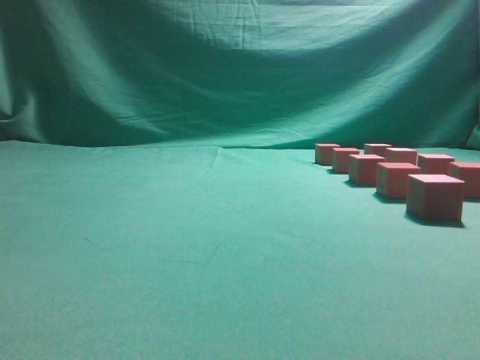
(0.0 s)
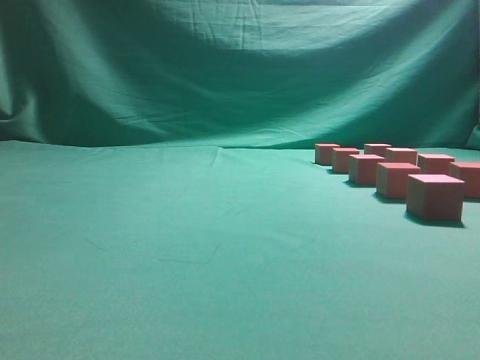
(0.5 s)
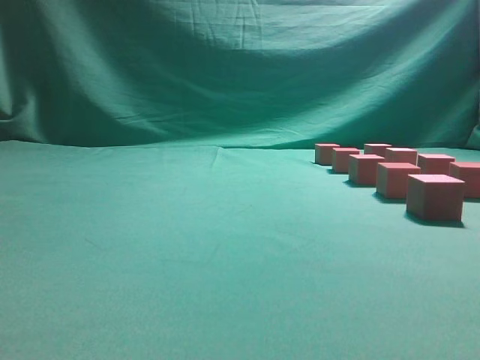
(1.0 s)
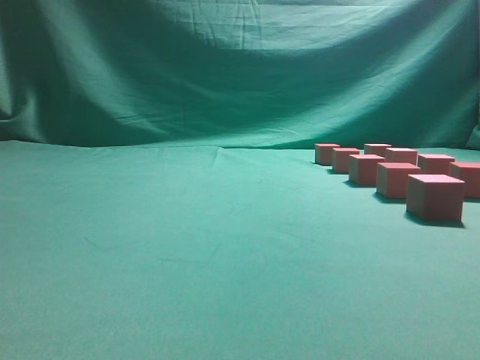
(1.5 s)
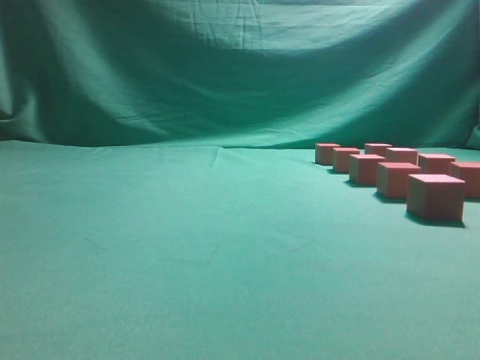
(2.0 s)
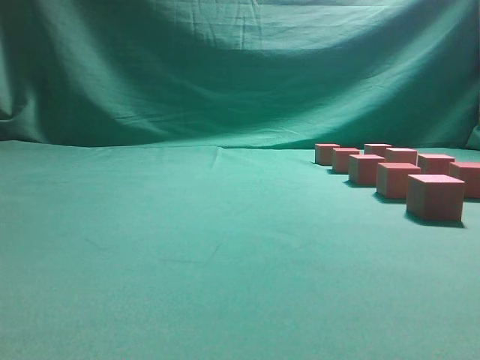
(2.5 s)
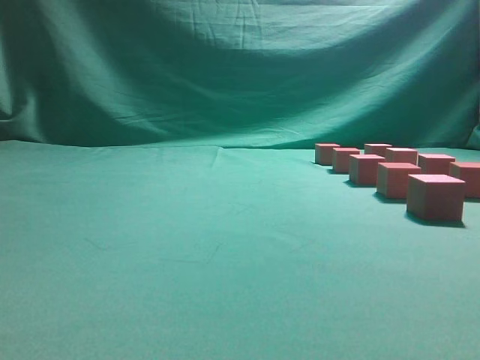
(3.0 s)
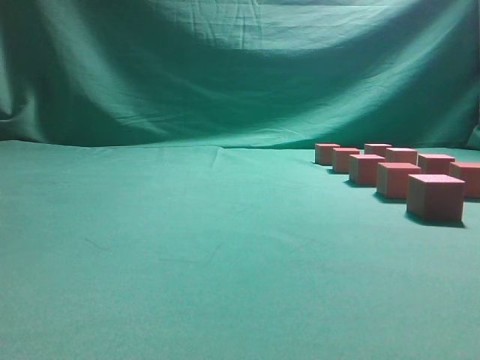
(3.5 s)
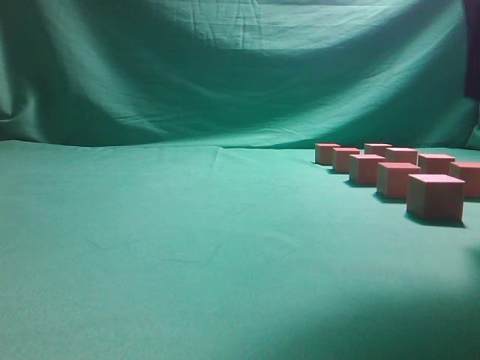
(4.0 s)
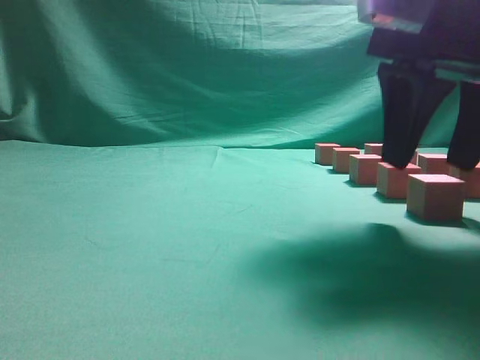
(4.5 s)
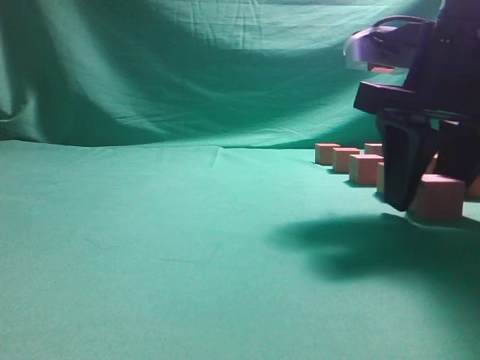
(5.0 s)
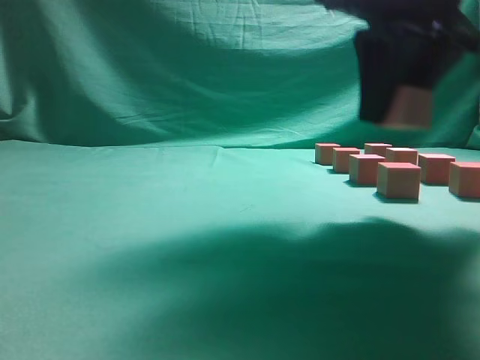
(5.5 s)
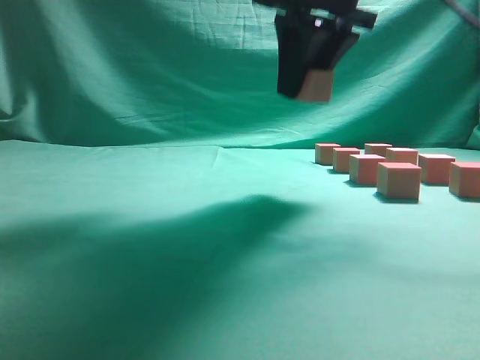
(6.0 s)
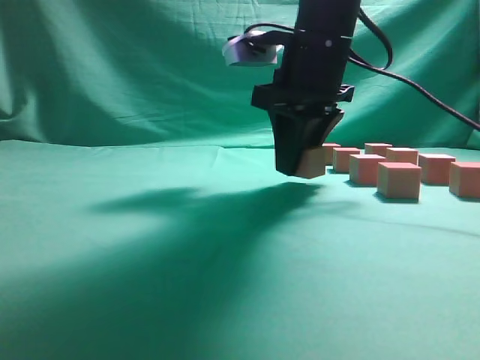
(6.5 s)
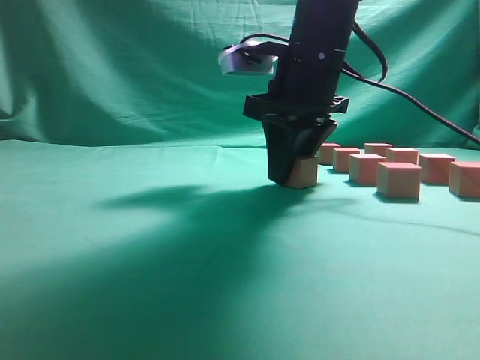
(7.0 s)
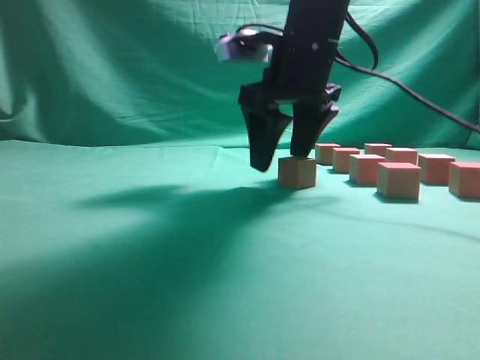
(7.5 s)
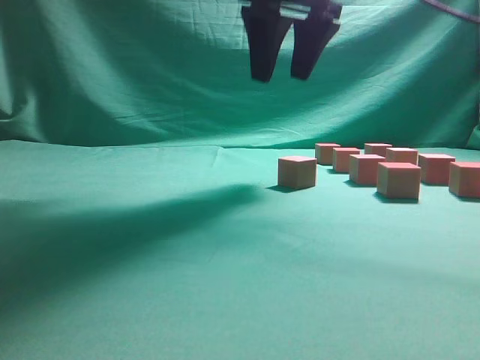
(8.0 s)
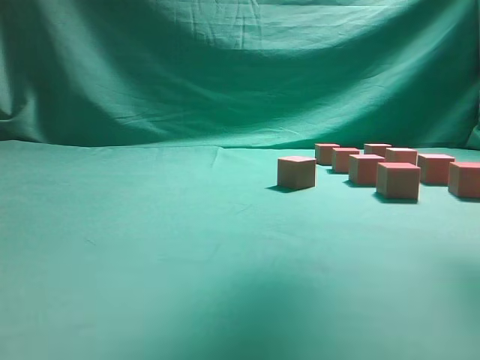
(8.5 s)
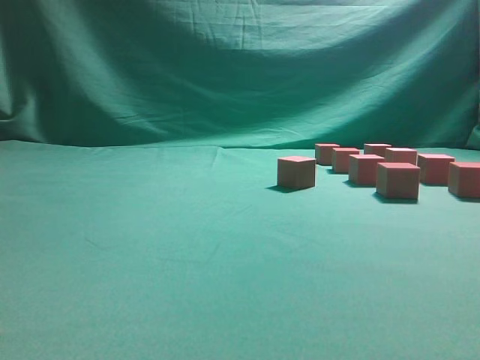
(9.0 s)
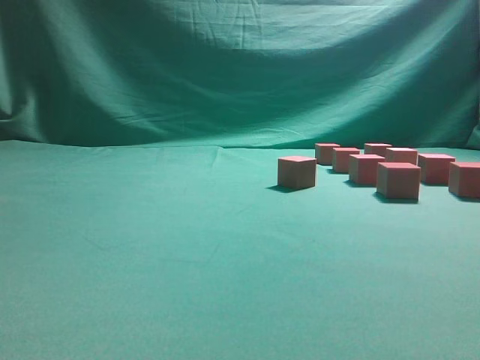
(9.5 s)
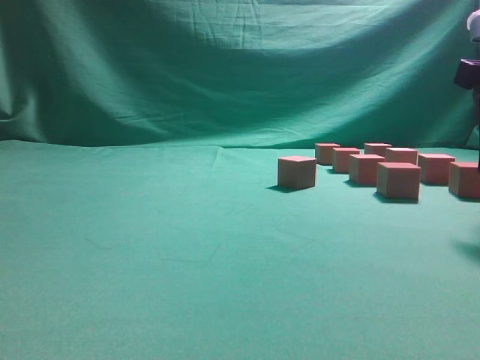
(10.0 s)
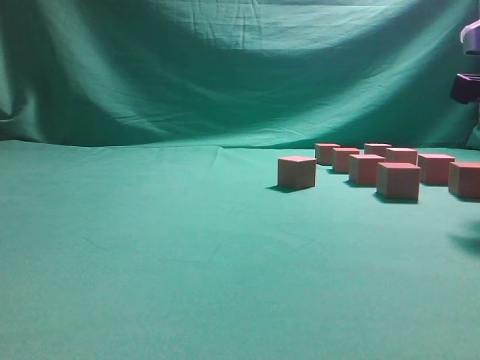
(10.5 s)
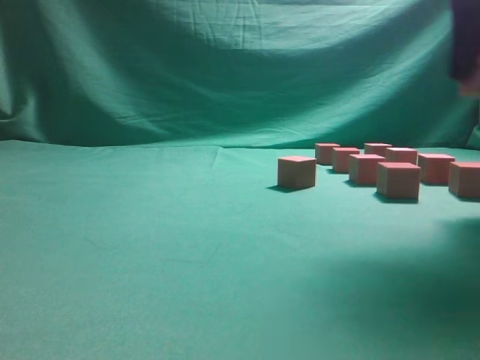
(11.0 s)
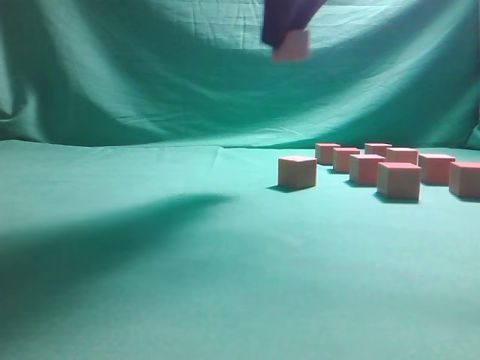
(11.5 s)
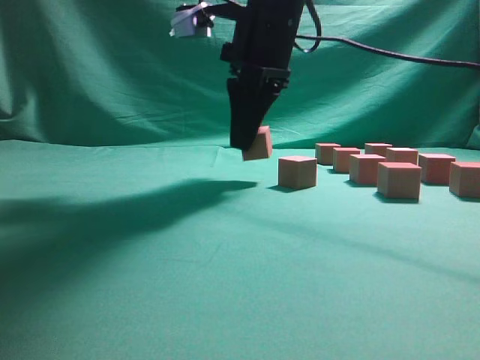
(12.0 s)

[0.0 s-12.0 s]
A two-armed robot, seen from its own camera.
Task of the whole recording: pick up the multiple cubes in two columns one by one and place them in another position on the table.
Step, 0.0 to 5.0 s: Pick up the block on the table.
Step, 5.5 to 7.5 s: Place the block at the correct position to assemble the letter S.
Step, 8.0 to 10.5 s: Pick up the block on the table.
2.0 to 4.0 s: The right gripper travels forward and to the left by roughly 20 cm.
4.0 to 6.0 s: The right gripper goes about 15 cm forward and to the left, and opens, then closes once more.
6.0 to 8.0 s: The right gripper travels downward and back again, roughly 10 cm each way, and opens.
8.0 to 10.0 s: The right gripper moves to the right, backward and downward, approximately 25 cm.
10.0 to 12.0 s: The right gripper shifts roughly 25 cm to the left and forward, and closes up.

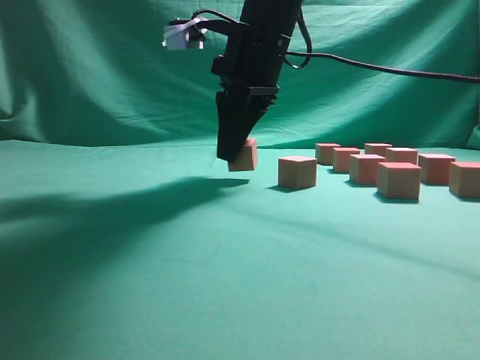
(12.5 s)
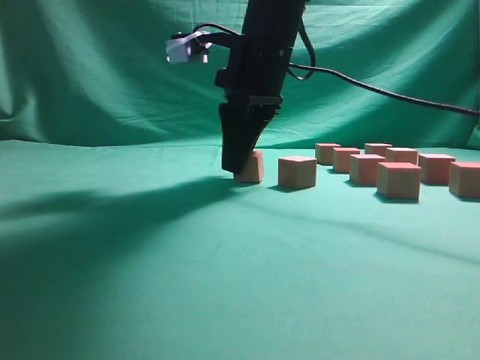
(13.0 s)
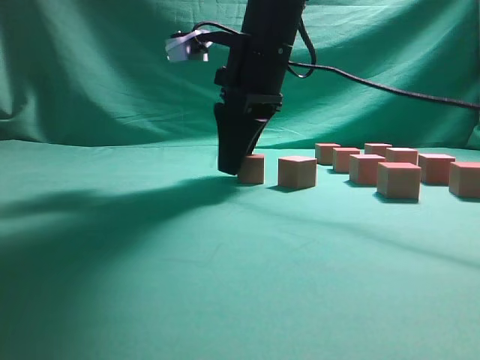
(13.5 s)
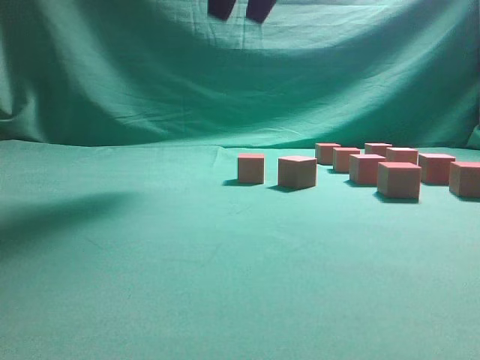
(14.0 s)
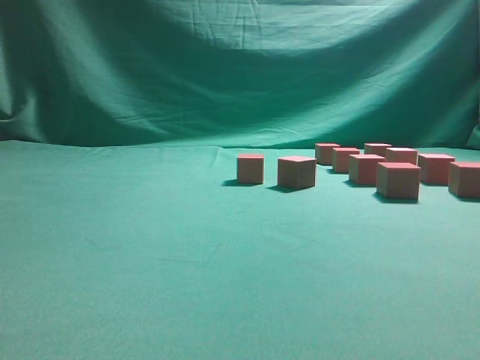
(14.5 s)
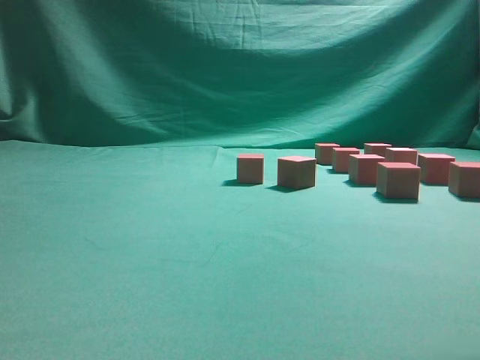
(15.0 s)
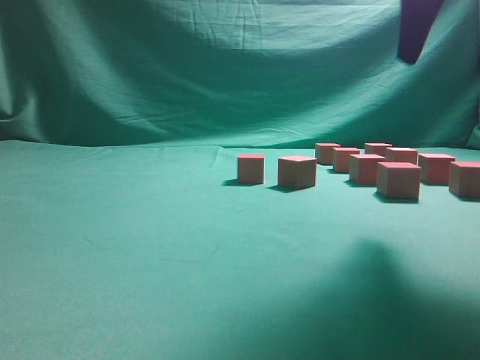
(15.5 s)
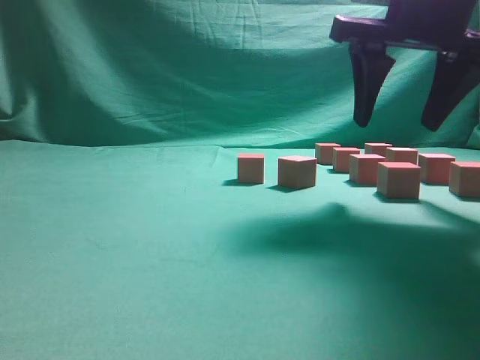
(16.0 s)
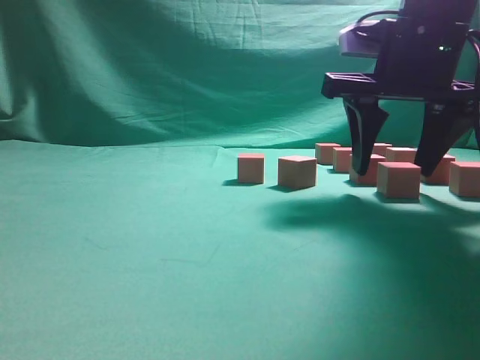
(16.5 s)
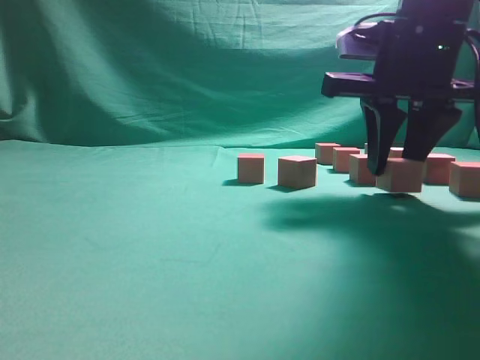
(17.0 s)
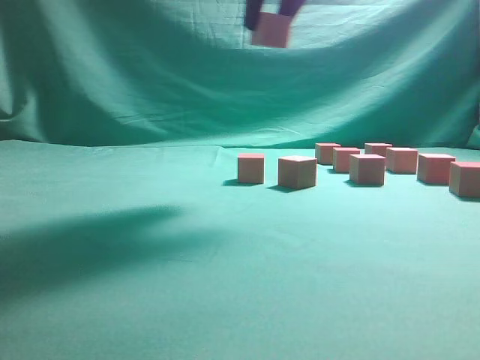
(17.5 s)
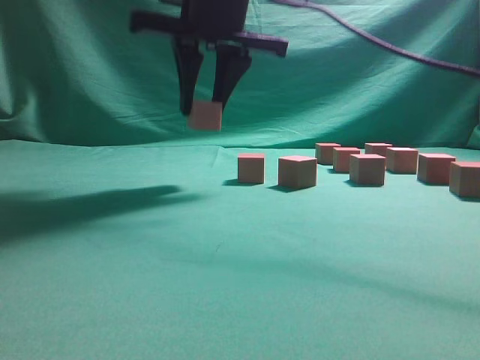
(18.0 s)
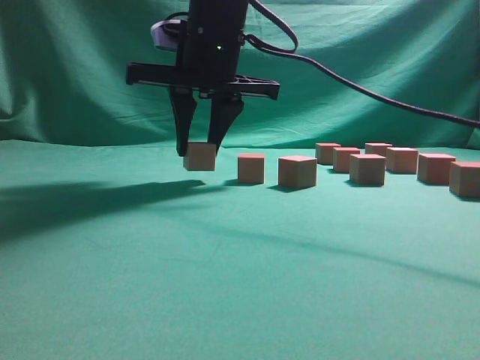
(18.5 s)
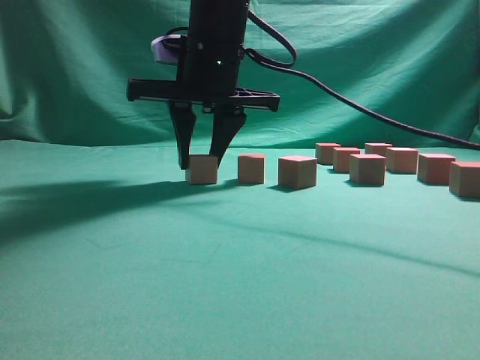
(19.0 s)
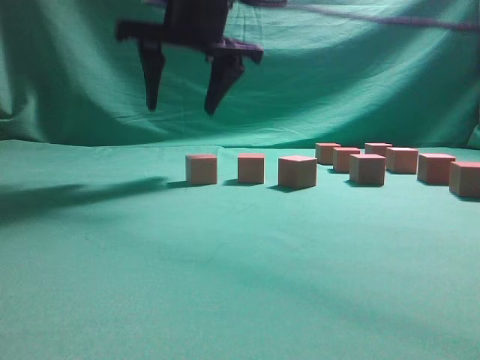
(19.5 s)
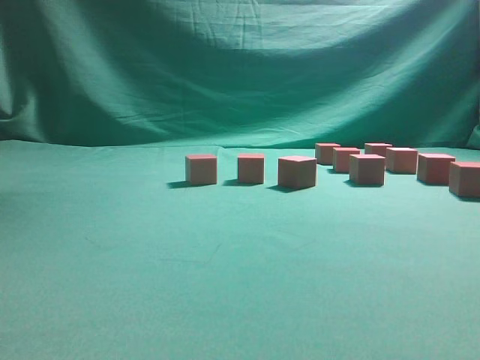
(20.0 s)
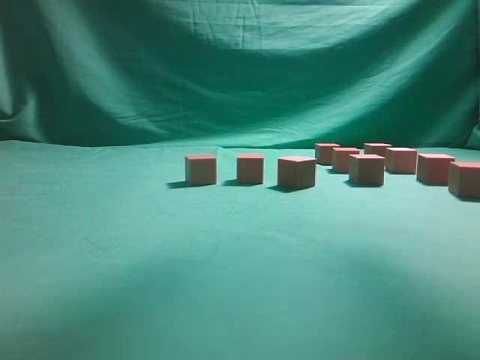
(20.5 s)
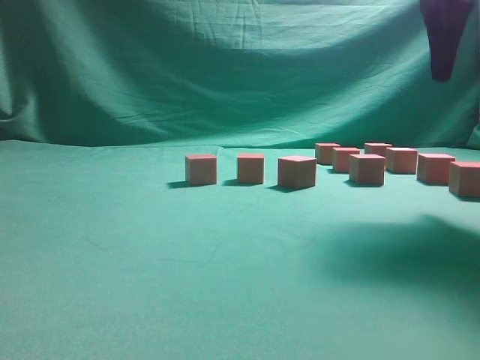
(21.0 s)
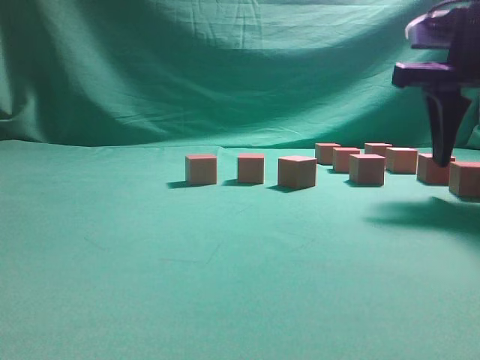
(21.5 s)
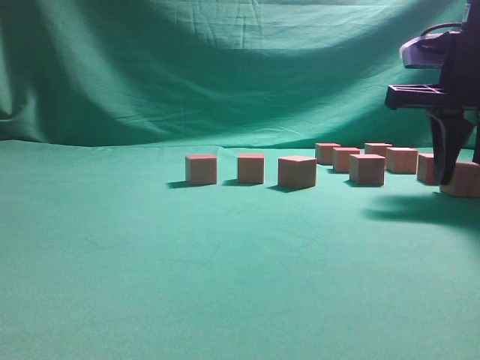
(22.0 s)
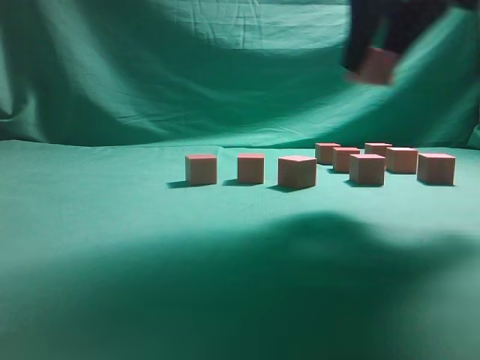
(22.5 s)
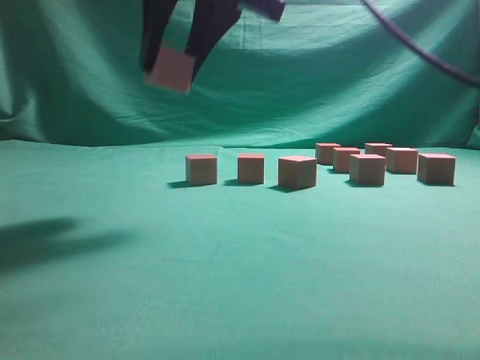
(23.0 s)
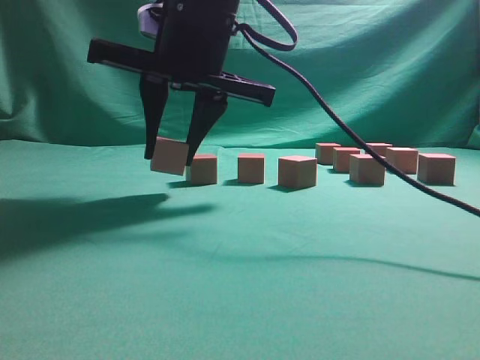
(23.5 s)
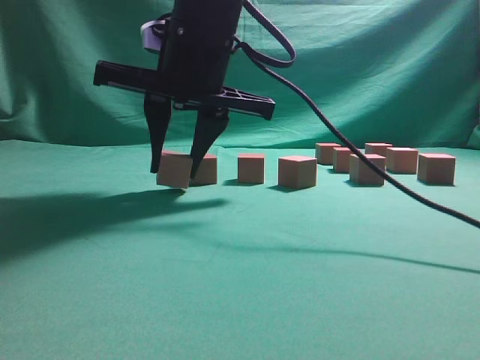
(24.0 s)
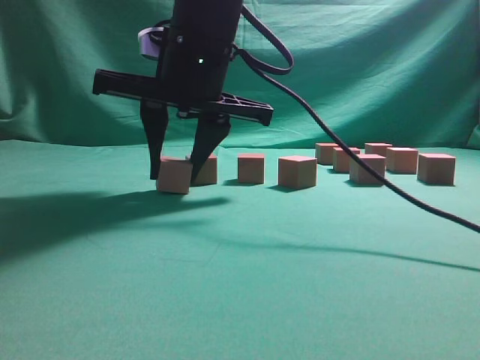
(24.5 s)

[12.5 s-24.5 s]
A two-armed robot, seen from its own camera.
Task of the whole recording: pick up the multiple cubes in two columns one by one and place them in another position on the table.
Step, 14.0 to 17.0 s: Pick up the block on the table.
Step, 17.5 to 19.5 s: Place the block at the correct position to assemble the letter S.
Step, 20.0 to 22.0 s: Pick up the block on the table.
12.5 to 14.5 s: The right gripper is displaced upward, backward and to the right by roughly 30 cm, and opens its fingers.
14.5 to 16.5 s: The right gripper is displaced downward by about 30 cm.
16.5 to 18.5 s: The right gripper goes about 20 cm to the left, and closes.
18.5 to 20.5 s: The right gripper moves upward and to the right, about 30 cm, and opens.
20.5 to 22.5 s: The right gripper goes roughly 15 cm downward, and closes up.
22.5 to 24.5 s: The right gripper is displaced to the left and downward by approximately 20 cm.

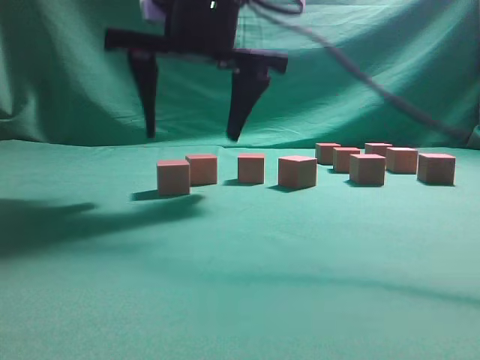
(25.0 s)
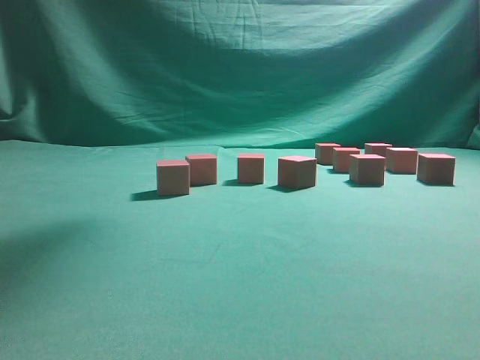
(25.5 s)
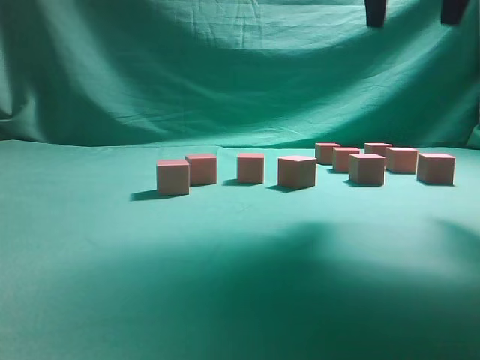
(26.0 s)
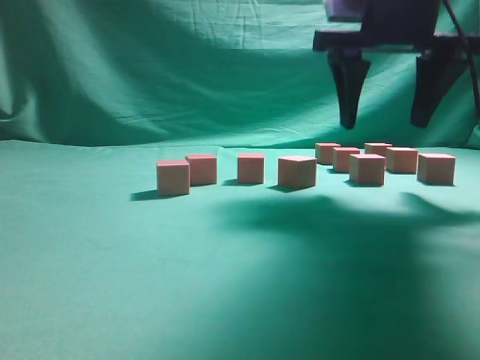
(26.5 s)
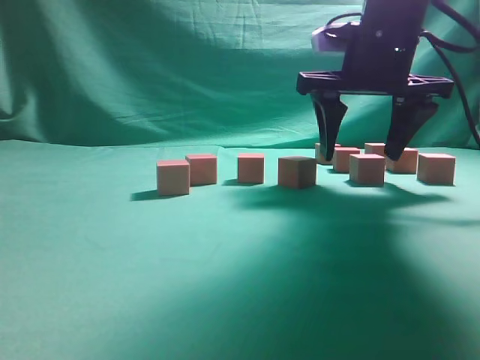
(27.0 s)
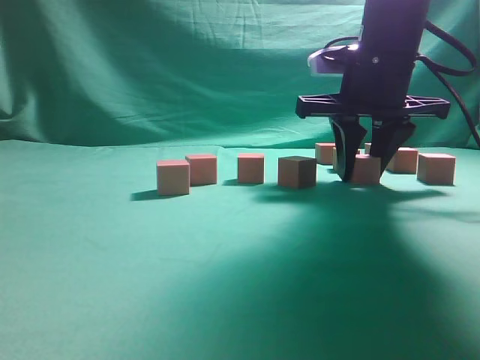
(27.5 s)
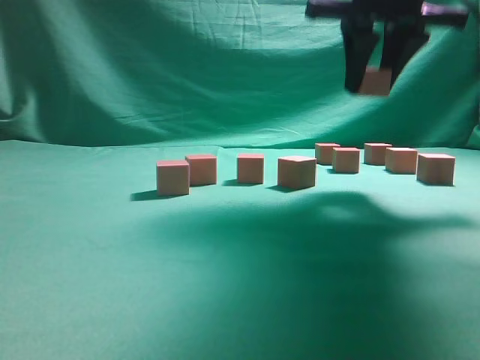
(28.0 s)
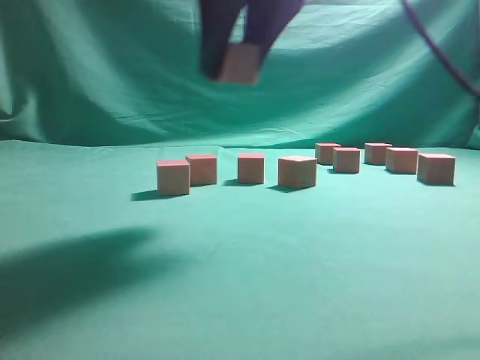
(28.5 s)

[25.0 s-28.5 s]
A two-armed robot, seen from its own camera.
Task of the whole recording: pick up the multiple cubes in two columns one by one and place them in another position on the table.
Step, 25.5 to 27.5 s: Pick up the block on the table.
25.0 to 27.0 s: The right gripper goes some 15 cm to the right.
27.0 to 28.5 s: The right gripper shifts roughly 20 cm to the left, backward and upward, and closes up.
